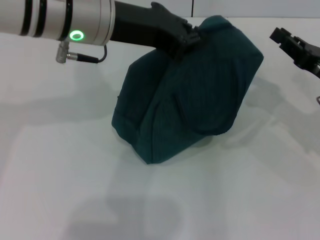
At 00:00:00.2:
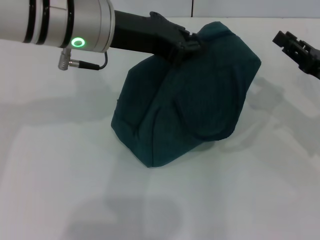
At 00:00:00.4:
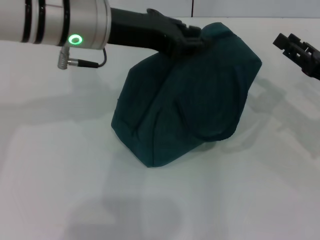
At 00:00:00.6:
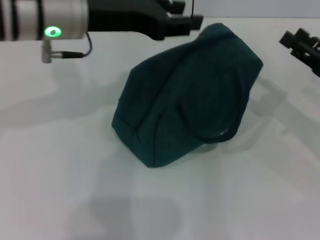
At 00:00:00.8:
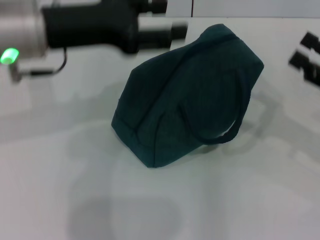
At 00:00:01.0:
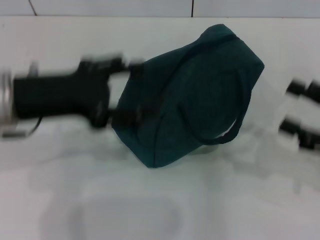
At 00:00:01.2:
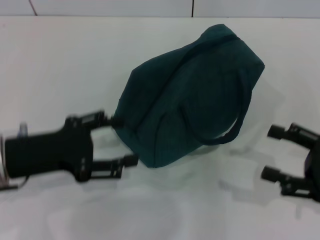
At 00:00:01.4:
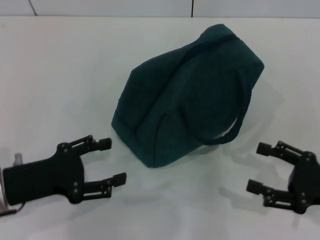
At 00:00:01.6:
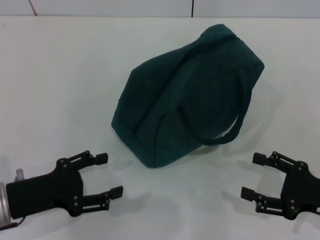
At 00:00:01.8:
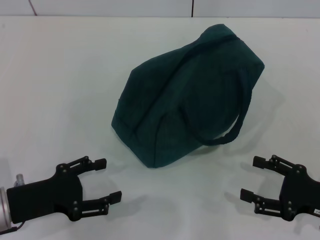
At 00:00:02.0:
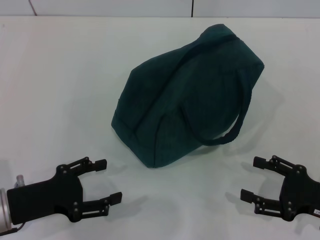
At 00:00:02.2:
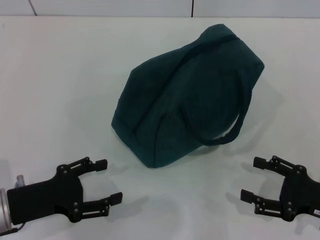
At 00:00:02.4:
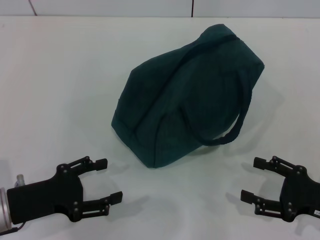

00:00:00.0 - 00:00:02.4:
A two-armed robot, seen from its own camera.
Step, 00:00:00.0 - 00:00:00.4: Hold the lunch bag with your left hand.
00:00:00.0 - 00:00:01.2: The left gripper shifts approximately 20 cm to the left, downward and backward, and opens; the right gripper heads backward, covering roughly 10 cm, and opens its fingers.
00:00:01.2 - 00:00:02.4: The two grippers go some 10 cm downward.
